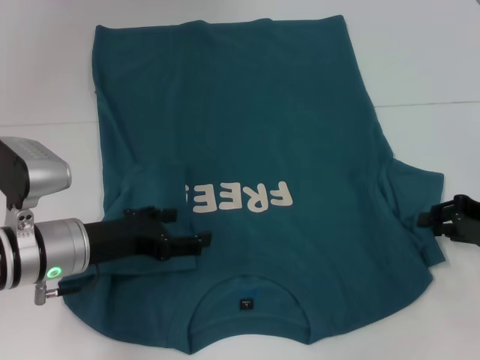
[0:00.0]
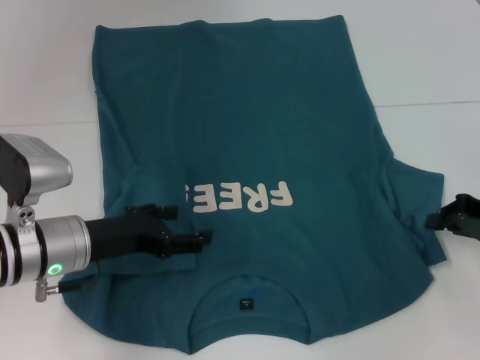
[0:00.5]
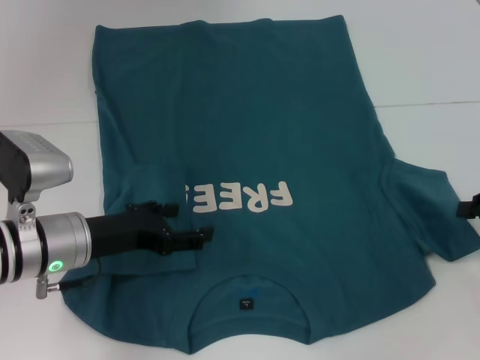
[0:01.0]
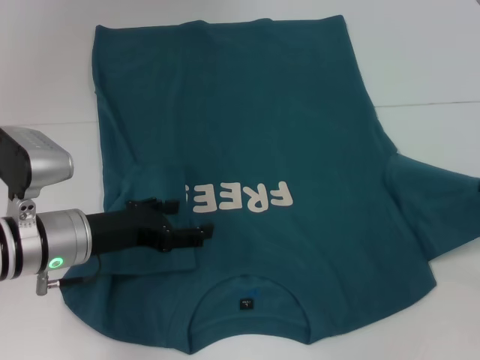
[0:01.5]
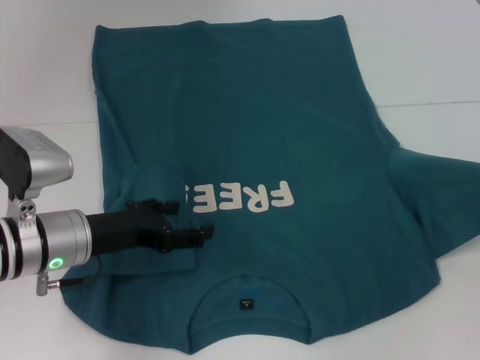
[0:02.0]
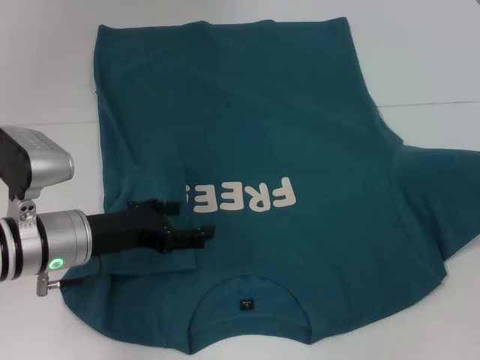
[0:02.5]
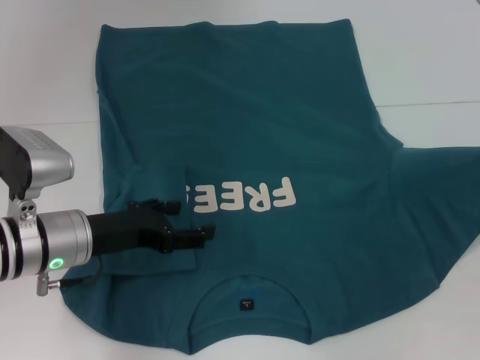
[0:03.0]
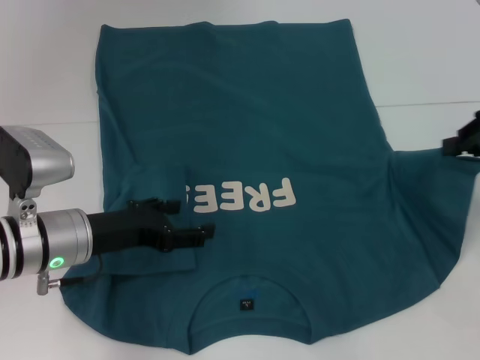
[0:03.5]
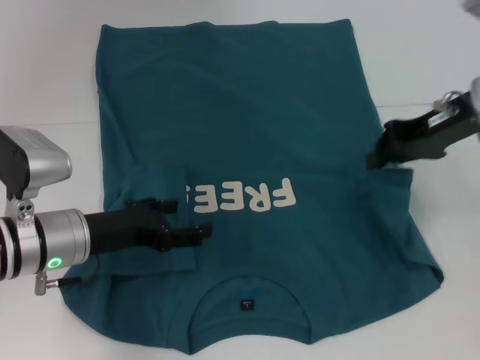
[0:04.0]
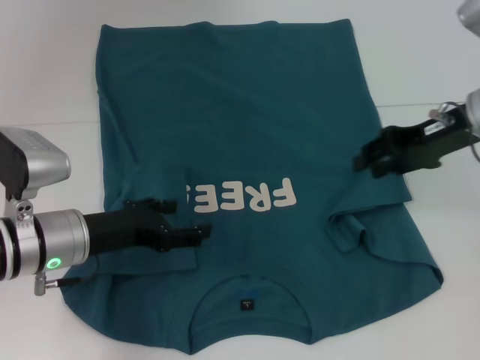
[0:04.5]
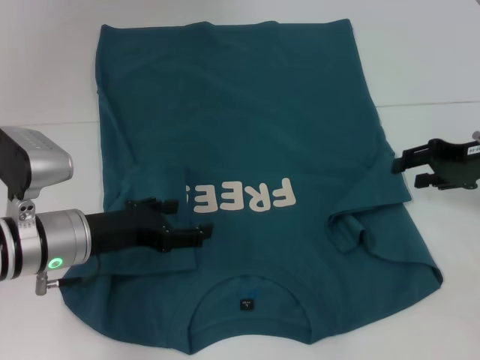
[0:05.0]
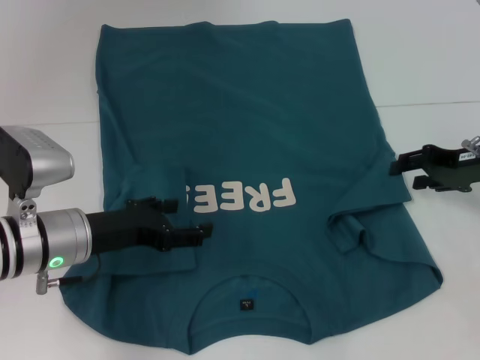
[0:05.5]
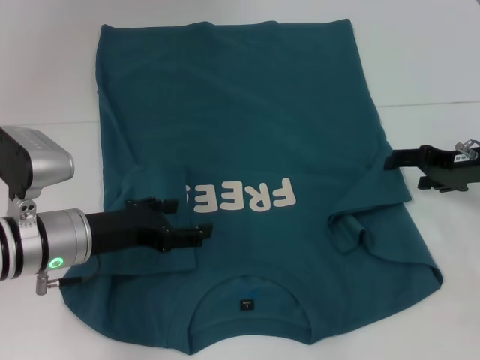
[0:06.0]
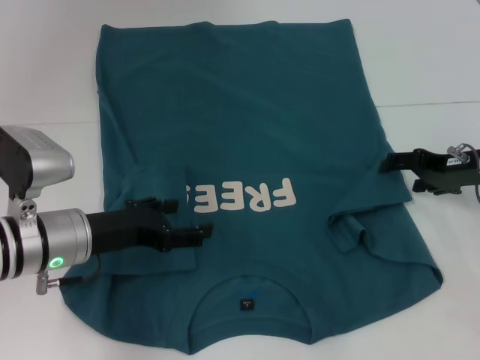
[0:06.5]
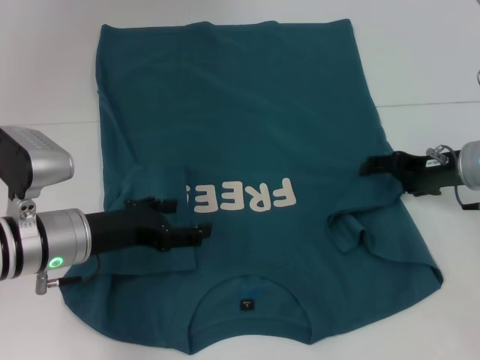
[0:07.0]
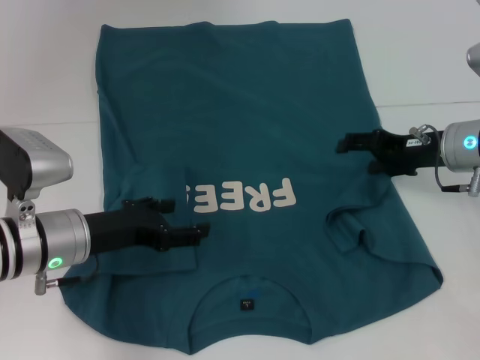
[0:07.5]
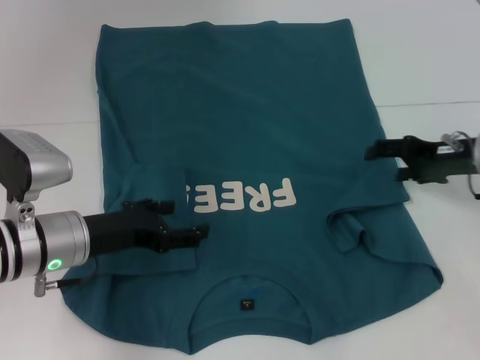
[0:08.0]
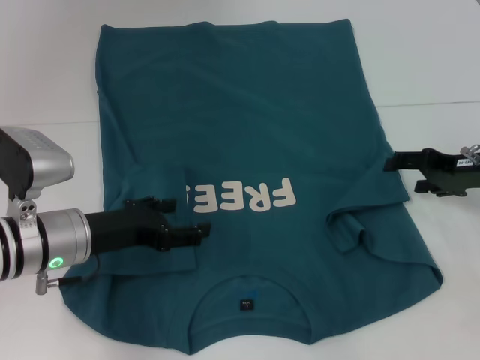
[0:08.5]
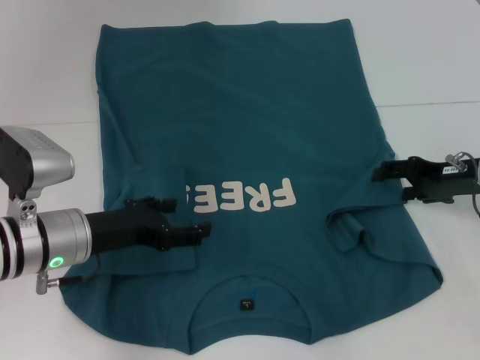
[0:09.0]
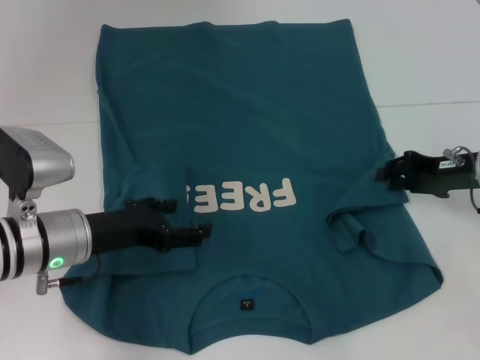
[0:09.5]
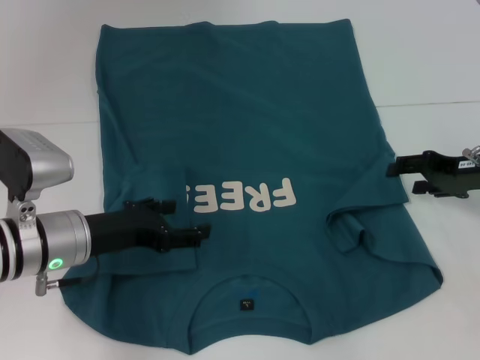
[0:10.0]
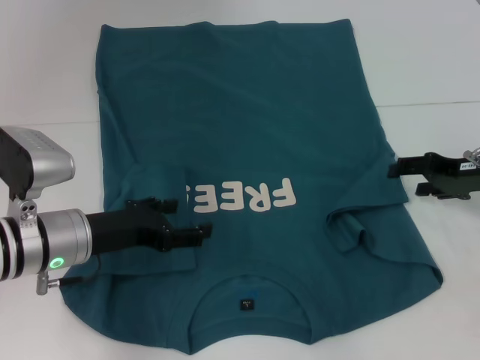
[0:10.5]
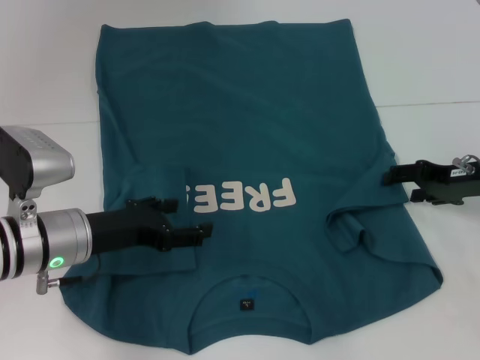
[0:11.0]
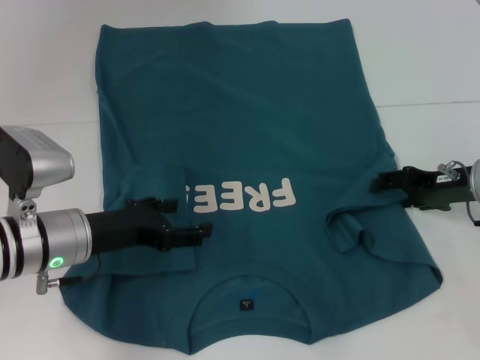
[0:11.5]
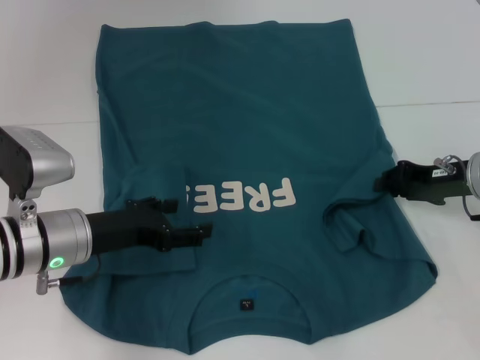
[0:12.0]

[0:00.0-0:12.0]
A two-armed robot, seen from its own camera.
0:00.0 to 0:02.0: The right gripper is displaced upward and to the right by about 10 cm, and closes.
0:02.0 to 0:04.0: The right gripper moves to the left and forward, some 15 cm.
0:04.0 to 0:06.0: The right gripper is displaced downward and to the right by roughly 10 cm, and opens its fingers.
0:06.0 to 0:12.0: There are only small adjustments of the grippers.

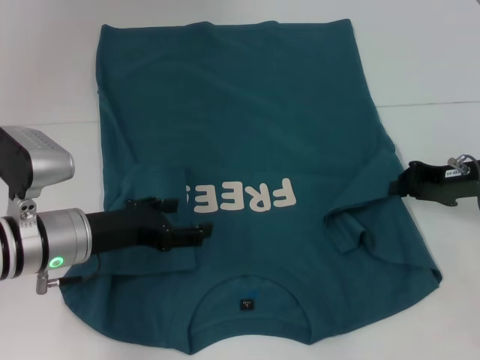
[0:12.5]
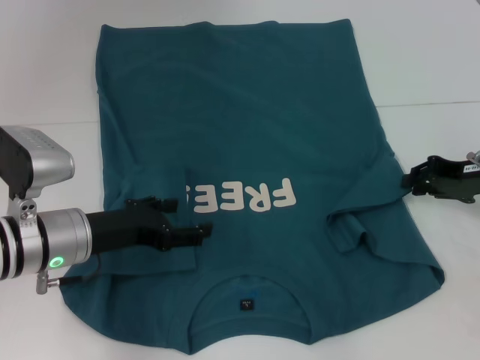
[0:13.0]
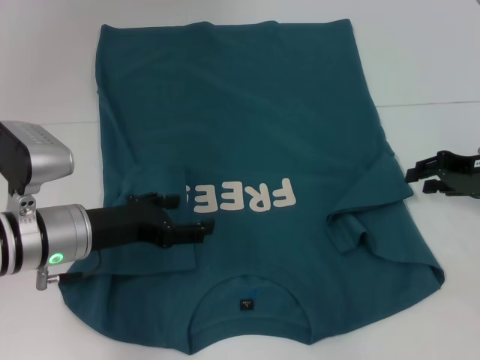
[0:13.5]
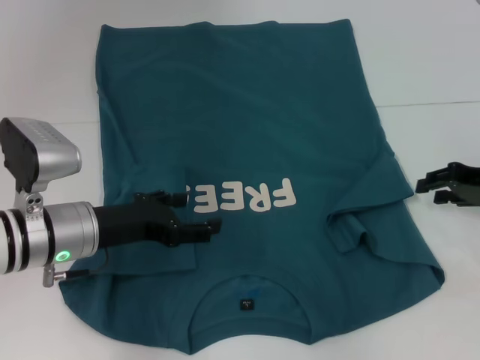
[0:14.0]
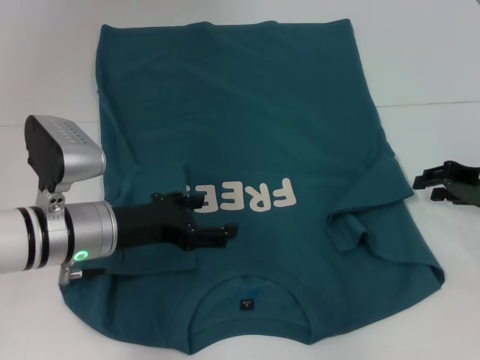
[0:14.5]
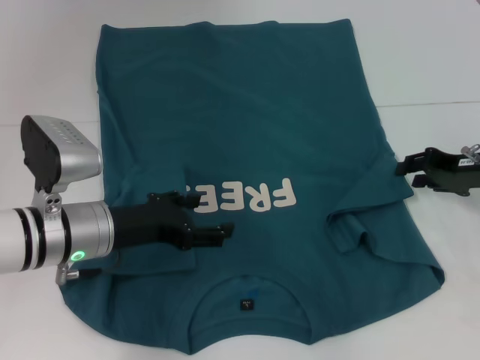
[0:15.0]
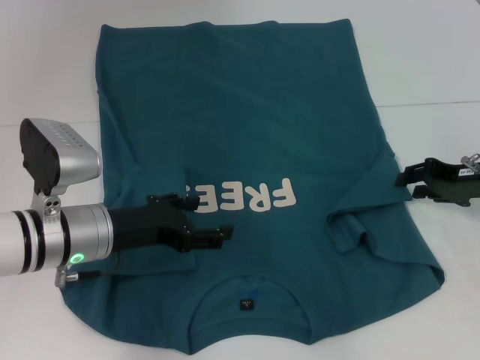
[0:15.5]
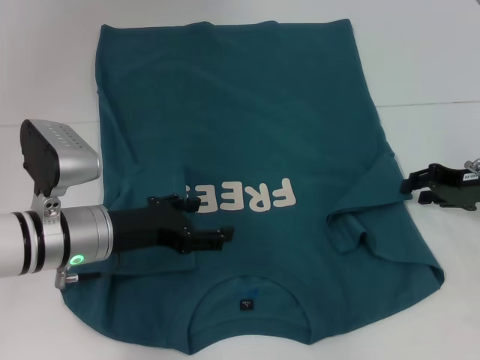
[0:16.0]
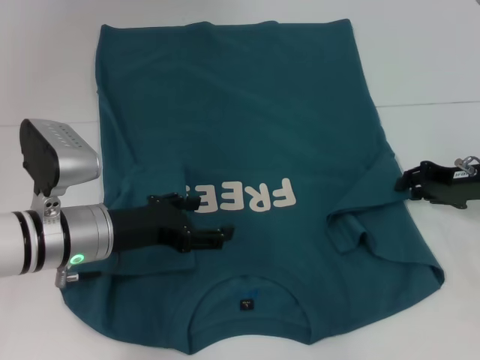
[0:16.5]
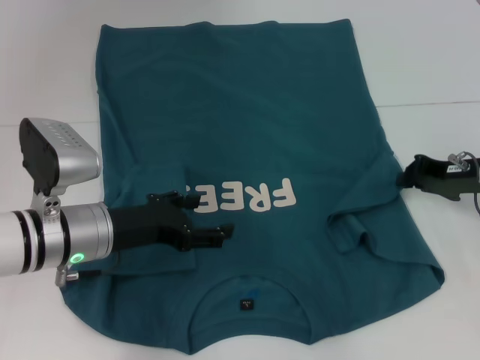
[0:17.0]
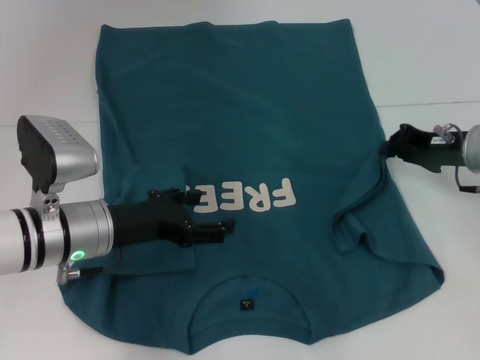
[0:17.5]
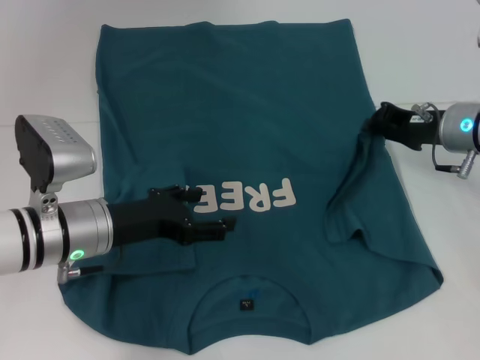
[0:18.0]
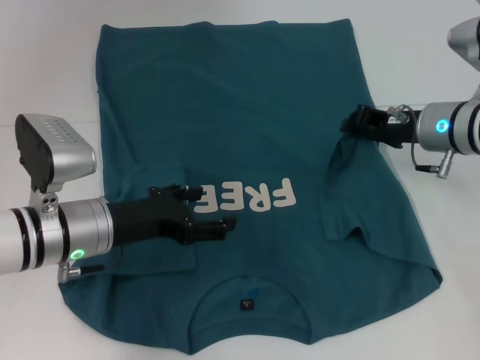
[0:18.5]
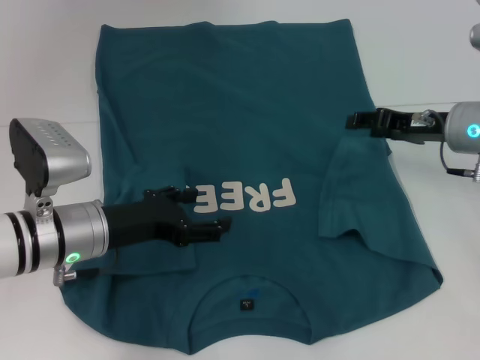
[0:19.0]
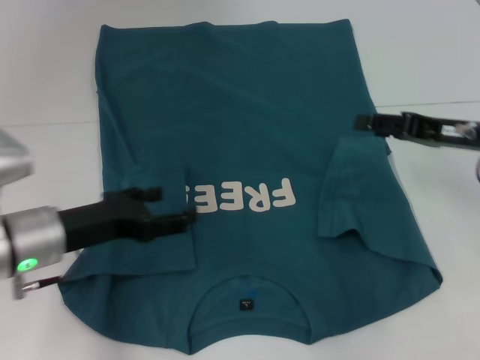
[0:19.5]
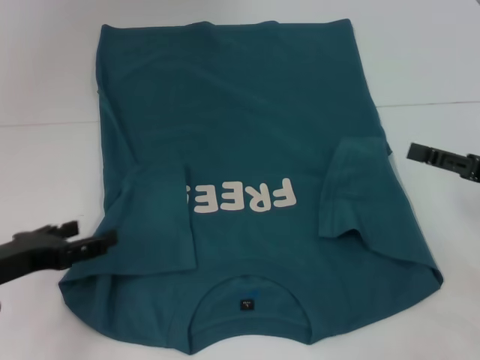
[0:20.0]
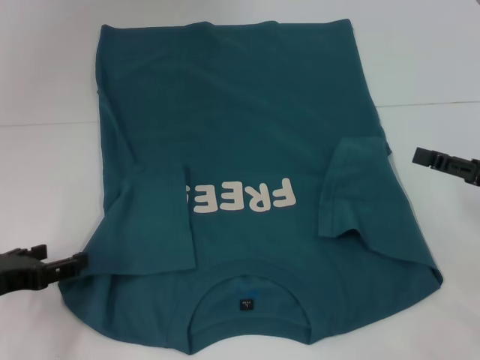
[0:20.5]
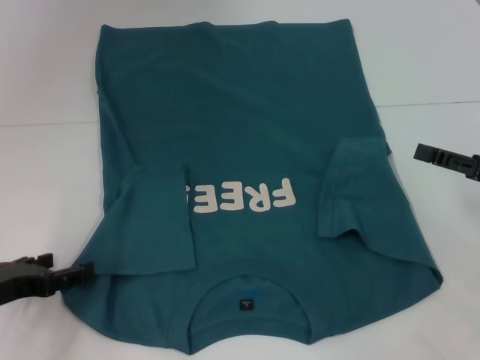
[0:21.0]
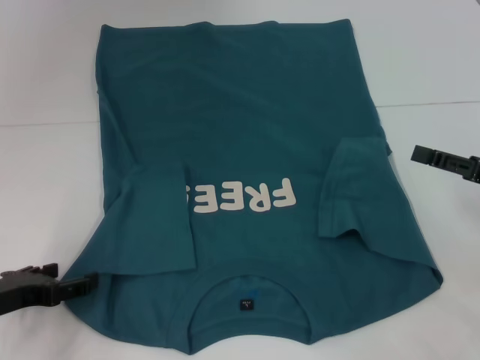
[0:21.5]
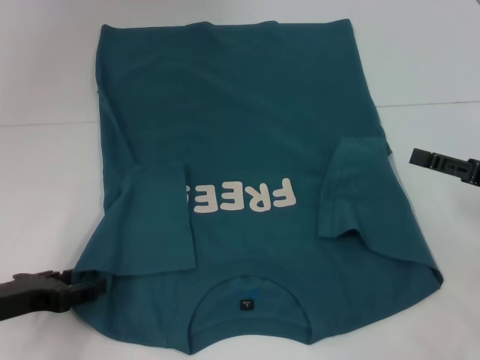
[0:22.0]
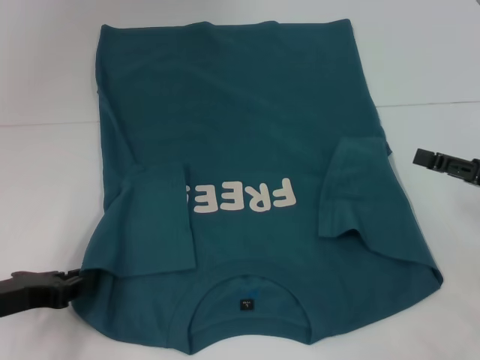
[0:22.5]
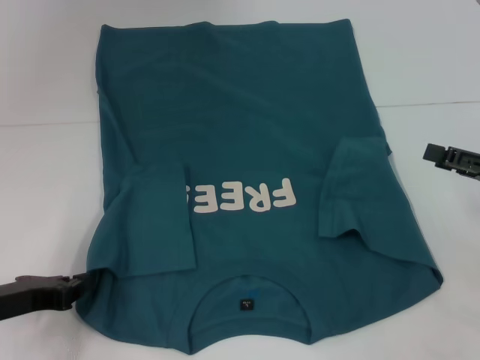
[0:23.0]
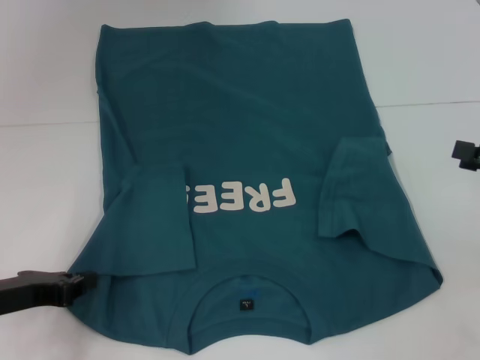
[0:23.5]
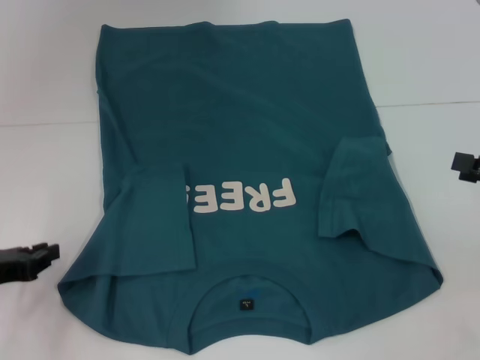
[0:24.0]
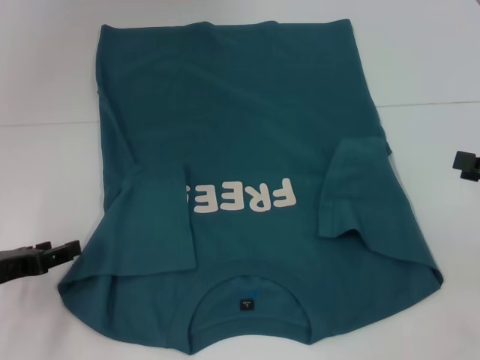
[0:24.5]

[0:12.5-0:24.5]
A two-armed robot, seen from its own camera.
Step, 0:12.5 to 0:19.0: Fold the bottom right sleeve to the right.
0:12.5 to 0:14.5: The right gripper opens up.
0:14.5 to 0:16.5: The grippers move only a little.
0:16.5 to 0:18.5: The right gripper heads to the left, covering approximately 5 cm.
0:18.5 to 0:20.5: The right gripper travels backward and to the right by approximately 15 cm, and opens up. The left gripper heads to the left and backward, covering roughly 15 cm.
0:20.5 to 0:22.5: The left gripper closes its fingers.
0:22.5 to 0:24.5: The left gripper closes, then reopens.

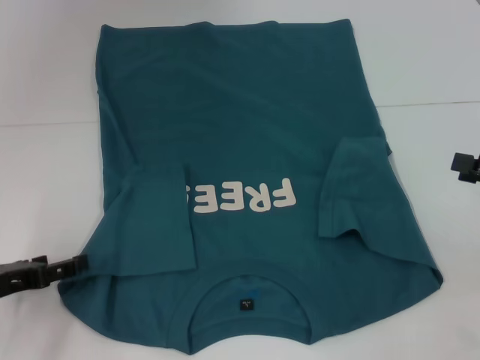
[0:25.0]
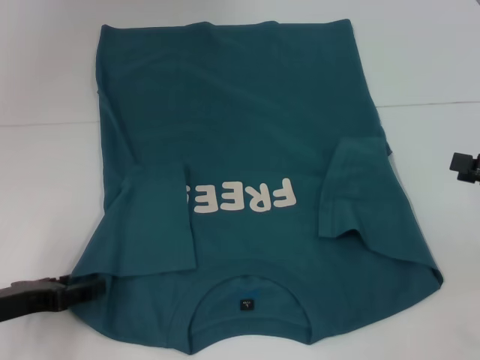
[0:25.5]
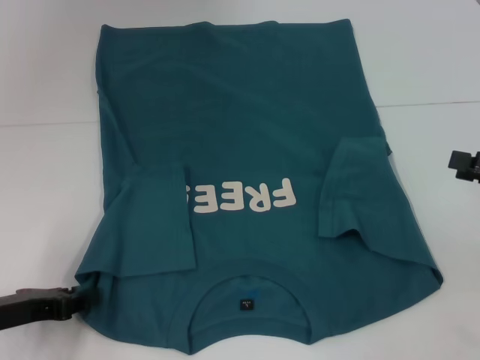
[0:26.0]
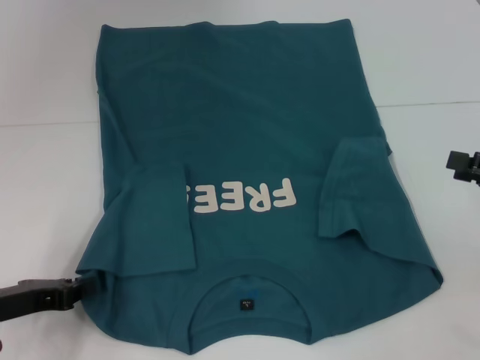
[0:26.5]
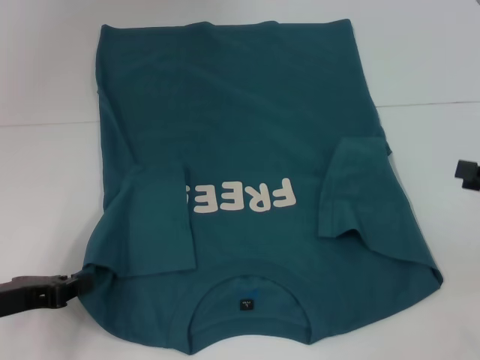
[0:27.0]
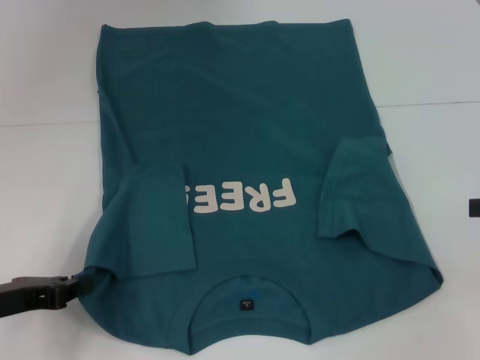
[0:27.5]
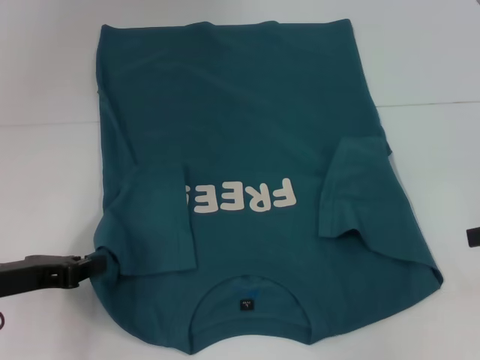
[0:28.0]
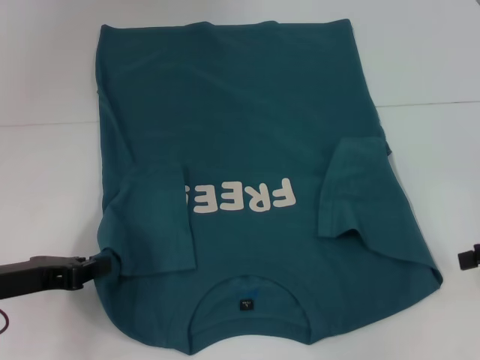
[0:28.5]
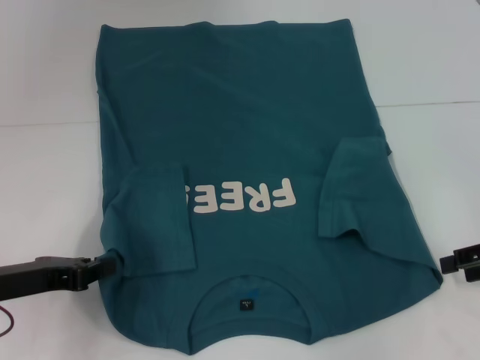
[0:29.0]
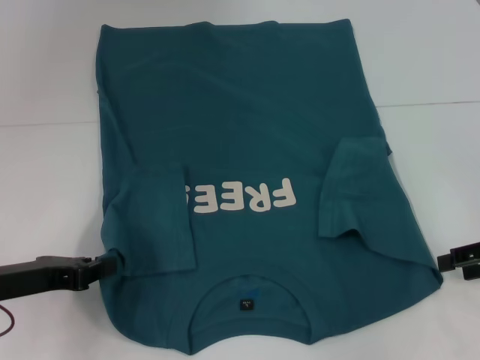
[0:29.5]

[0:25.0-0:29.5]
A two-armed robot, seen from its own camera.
0:25.0 to 0:27.0: The left gripper closes its fingers.
